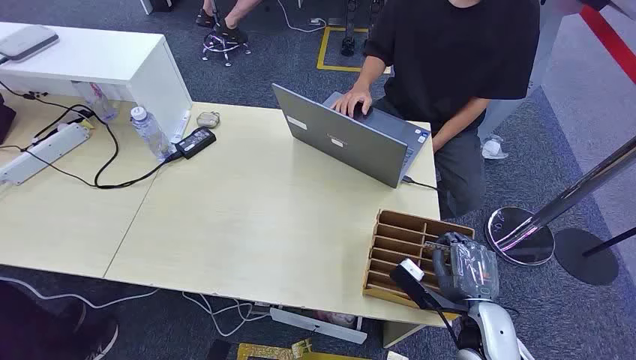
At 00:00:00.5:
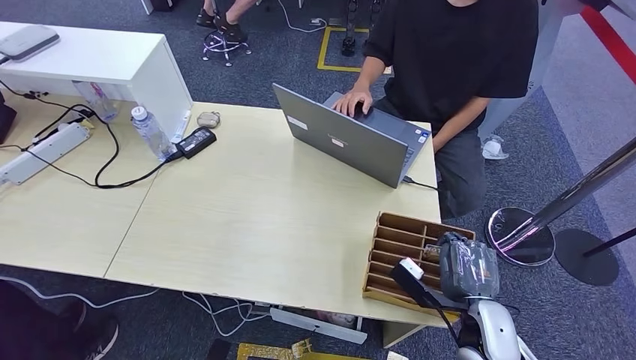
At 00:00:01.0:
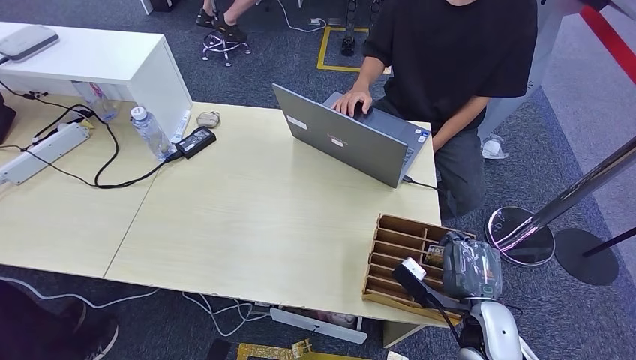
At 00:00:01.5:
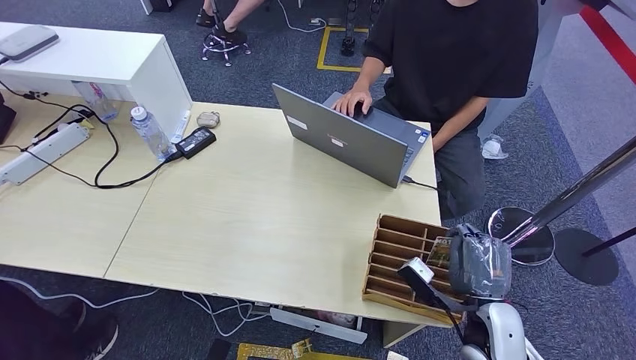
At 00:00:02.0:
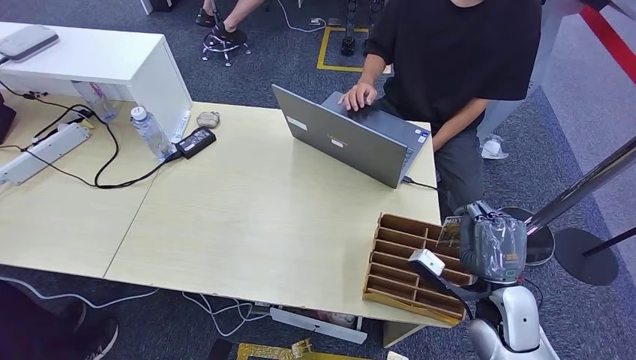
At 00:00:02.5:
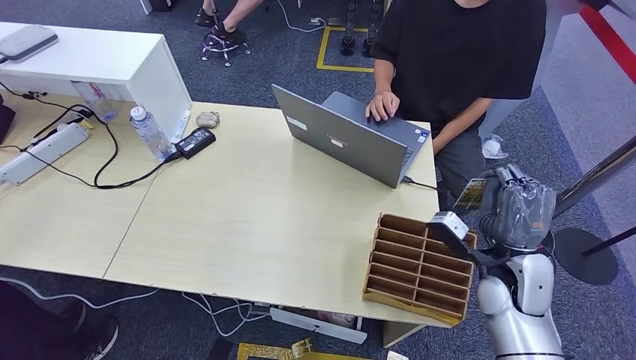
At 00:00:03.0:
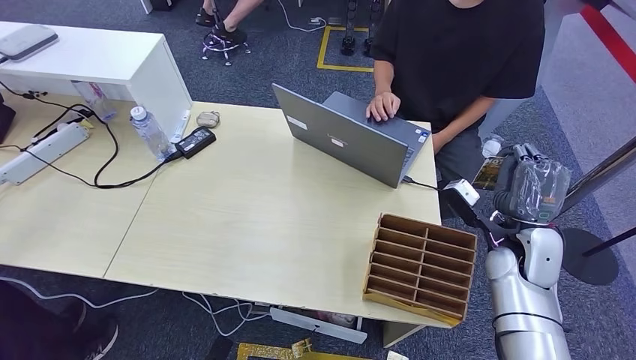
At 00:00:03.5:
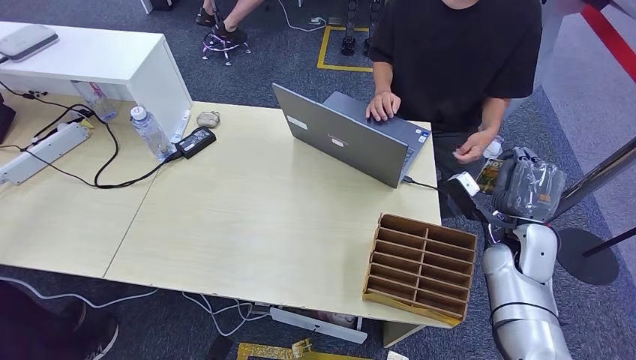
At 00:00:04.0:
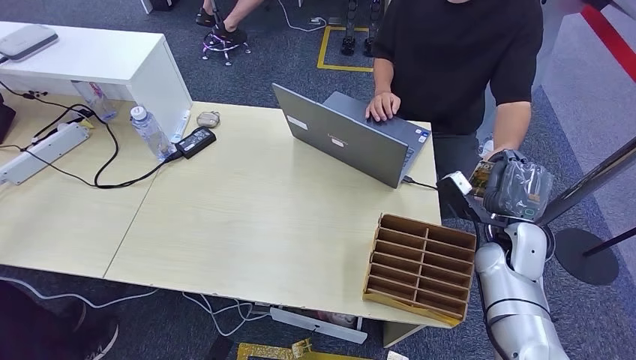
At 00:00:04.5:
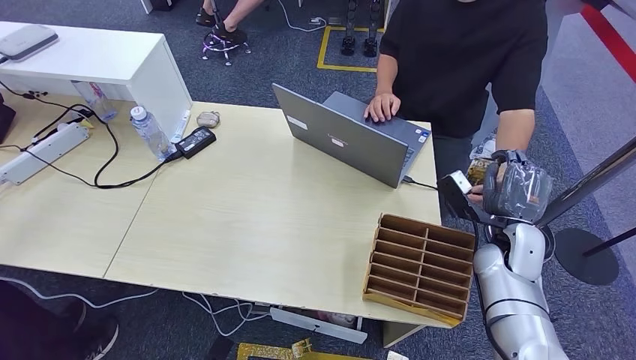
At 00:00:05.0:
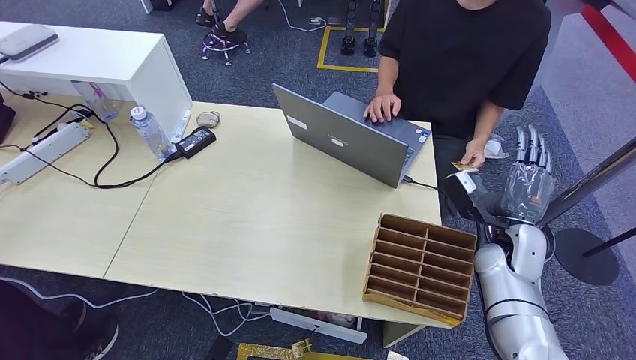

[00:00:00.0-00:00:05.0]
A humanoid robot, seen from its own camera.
Step, 00:00:00.0 to 00:00:02.5: Pick up the room card from the card holder.
Step, 00:00:03.0 to 00:00:05.0: Hand the room card to the target.
00:00:02.5 to 00:00:05.0: The right hand goes roughly 5 cm forward.
